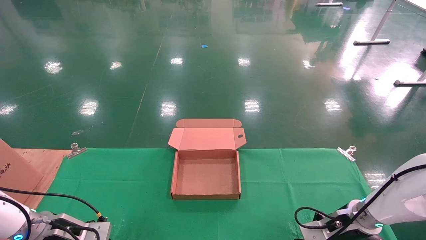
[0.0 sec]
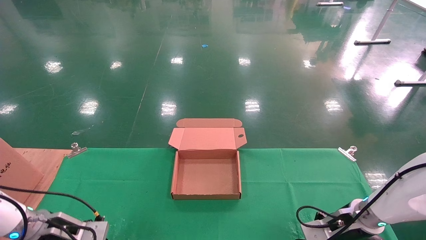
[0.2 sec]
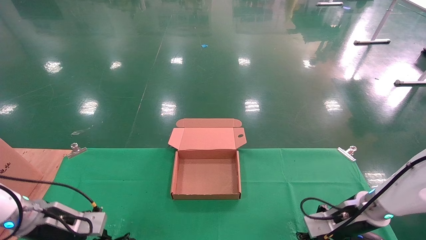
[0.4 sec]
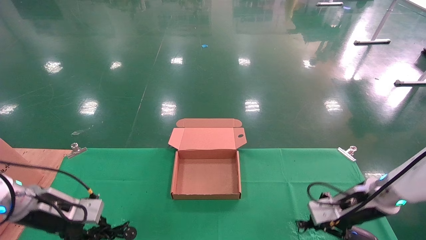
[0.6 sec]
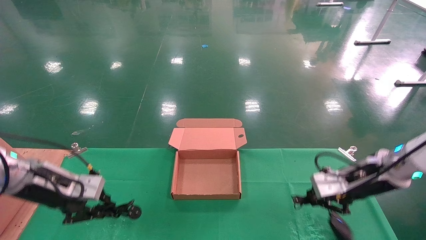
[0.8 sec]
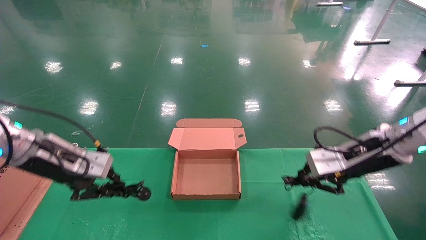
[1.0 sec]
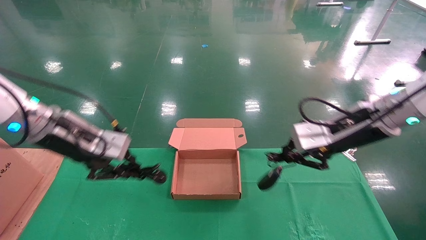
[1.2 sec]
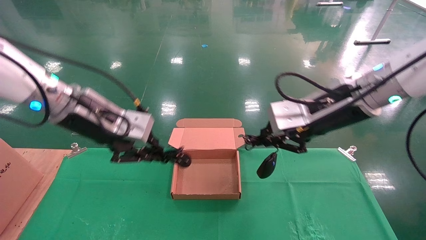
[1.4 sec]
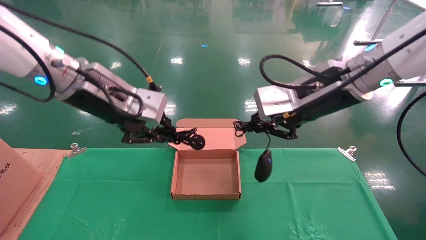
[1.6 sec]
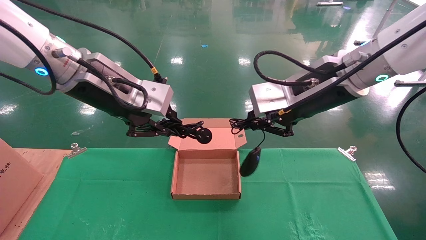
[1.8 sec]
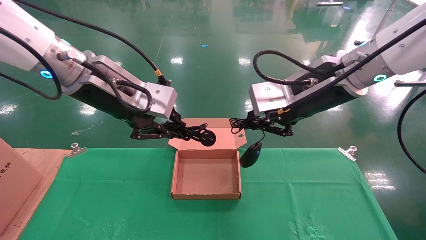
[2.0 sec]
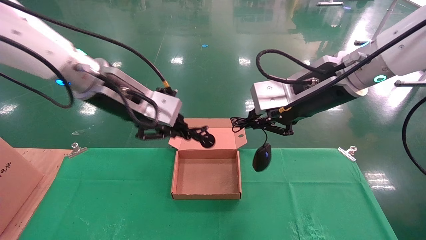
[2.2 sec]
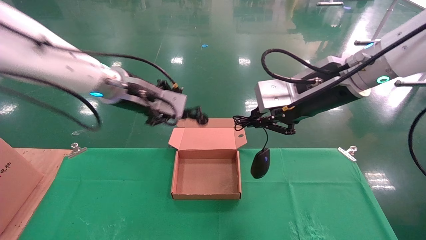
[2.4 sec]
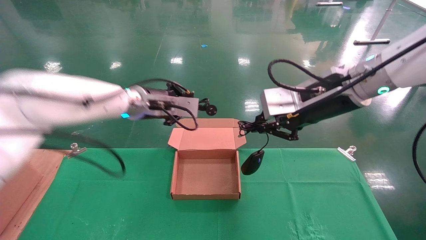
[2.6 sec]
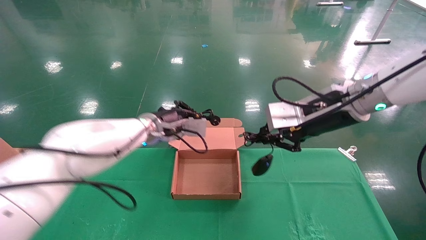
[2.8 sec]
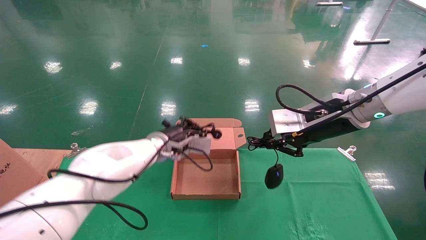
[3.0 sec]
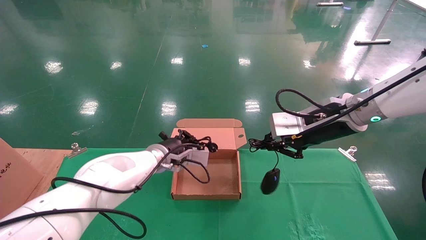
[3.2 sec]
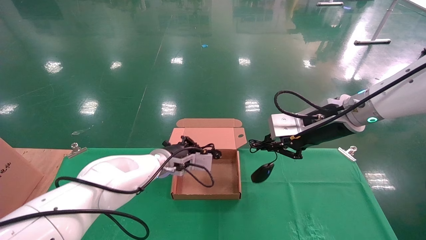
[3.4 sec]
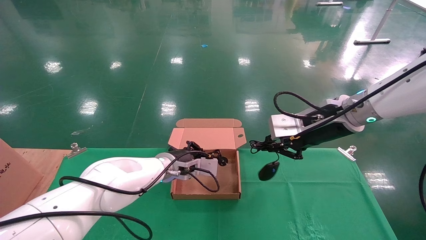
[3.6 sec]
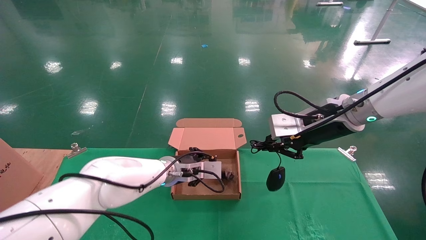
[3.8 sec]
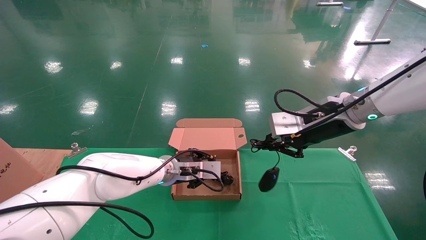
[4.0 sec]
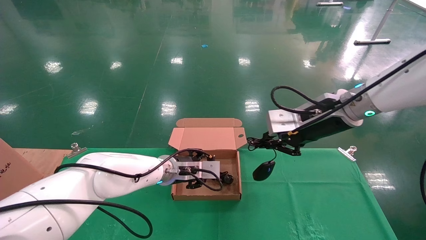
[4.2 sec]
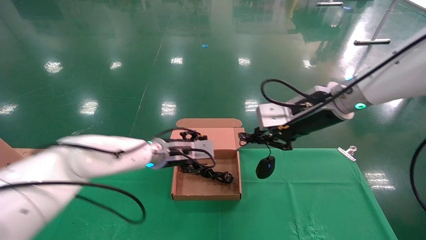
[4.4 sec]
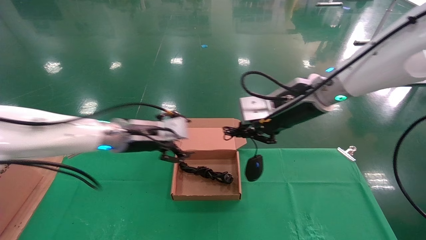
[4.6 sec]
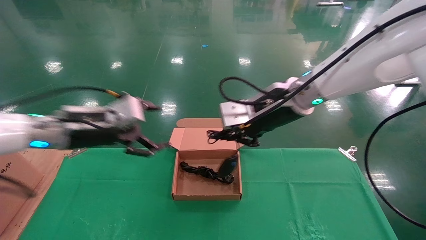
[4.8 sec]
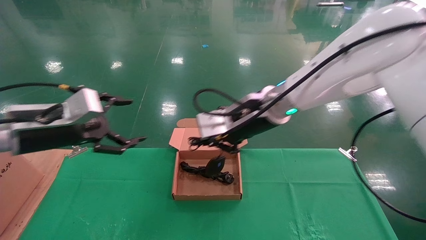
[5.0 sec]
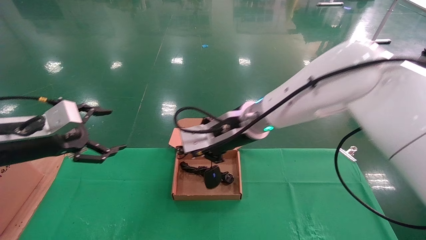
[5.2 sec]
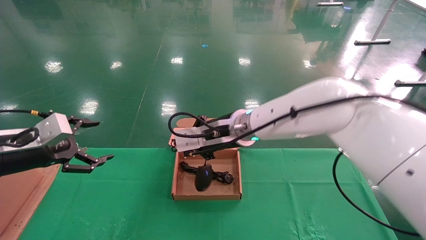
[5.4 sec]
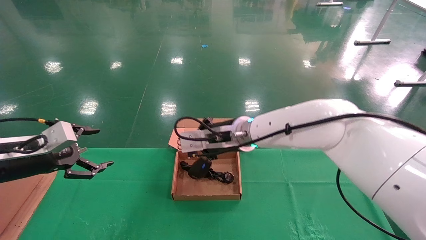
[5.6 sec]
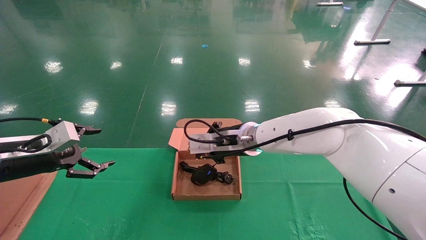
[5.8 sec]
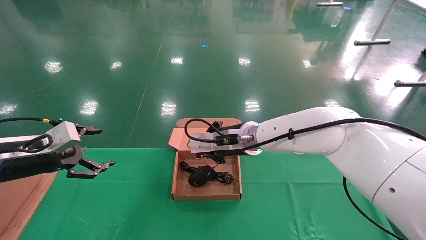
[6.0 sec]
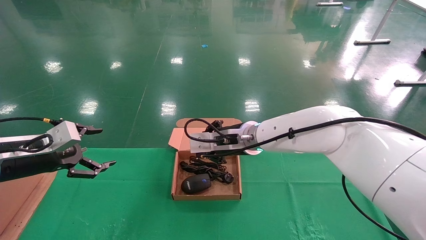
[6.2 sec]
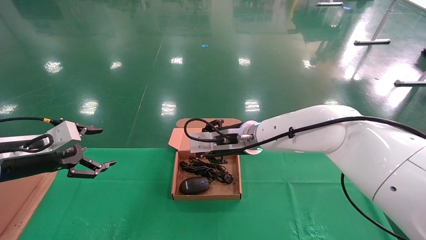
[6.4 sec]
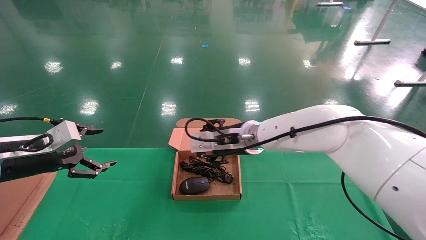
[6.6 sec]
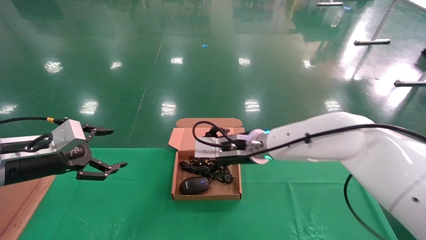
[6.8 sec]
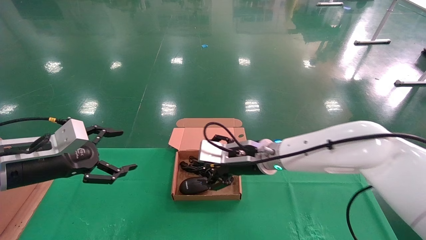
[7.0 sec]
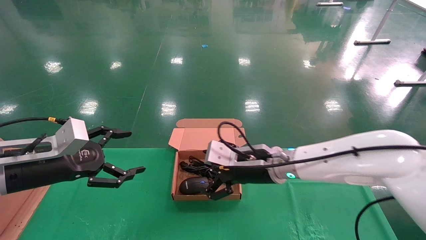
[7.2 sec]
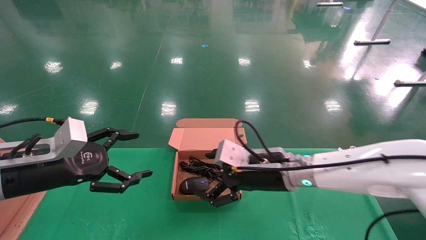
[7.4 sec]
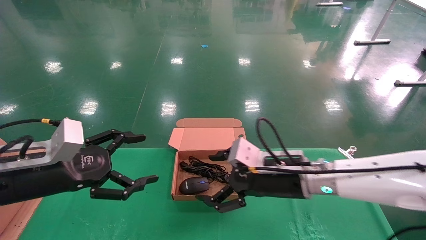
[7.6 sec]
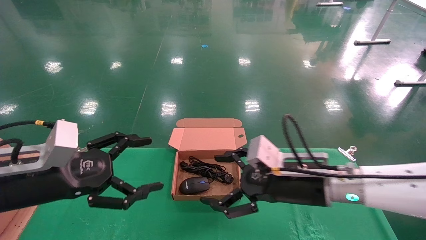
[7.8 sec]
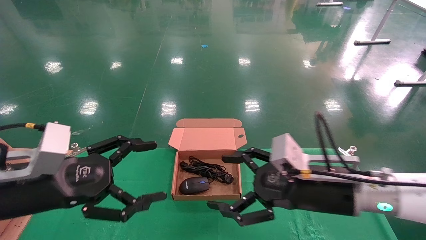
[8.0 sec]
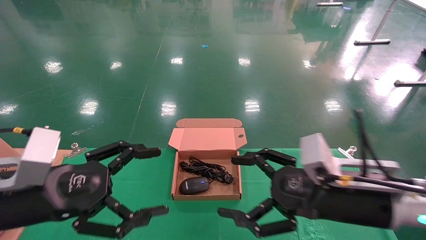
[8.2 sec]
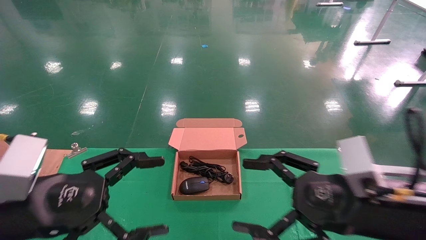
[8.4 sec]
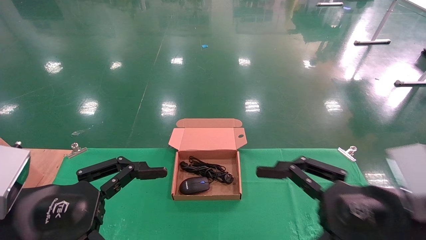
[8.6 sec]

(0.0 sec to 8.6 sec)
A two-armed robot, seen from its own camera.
Step, 1.0 sec - 7.0 sec: Place the mouse and power cord into the box.
0.0 sec - 1.4 sec: The right gripper moves upward, roughly 30 cm. The left gripper travels upward and to the right by some 30 cm.
1.4 sec - 2.8 sec: The left gripper moves forward, downward and to the right, roughly 20 cm.
2.8 sec - 4.4 sec: The left gripper opens.
4.4 sec - 5.8 sec: The left gripper heads to the left and backward, covering some 30 cm, and opens its fingers; the right gripper moves to the left, downward and forward, some 20 cm.
5.8 sec - 7.2 sec: The grippers both shift to the right by roughly 5 cm. The right gripper opens its fingers.
7.2 sec - 8.6 sec: The left gripper shifts approximately 15 cm backward and to the right. Meanwhile the right gripper travels backward and to the right by roughly 25 cm.

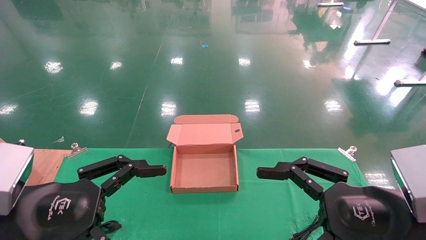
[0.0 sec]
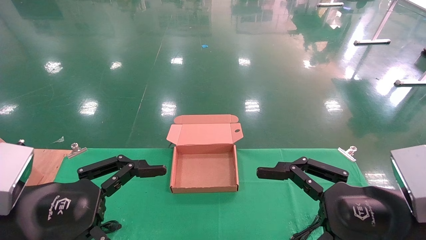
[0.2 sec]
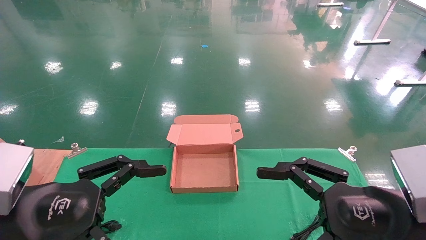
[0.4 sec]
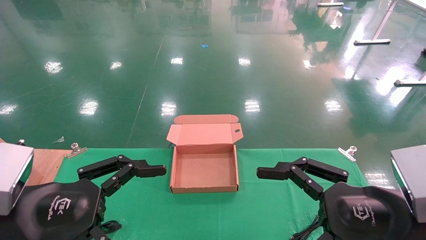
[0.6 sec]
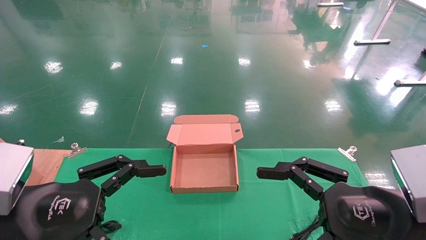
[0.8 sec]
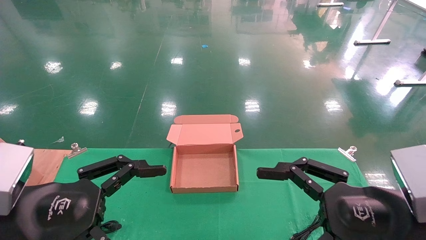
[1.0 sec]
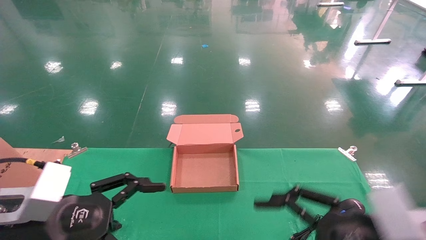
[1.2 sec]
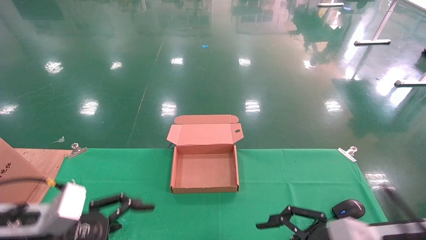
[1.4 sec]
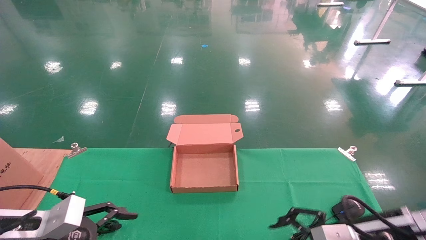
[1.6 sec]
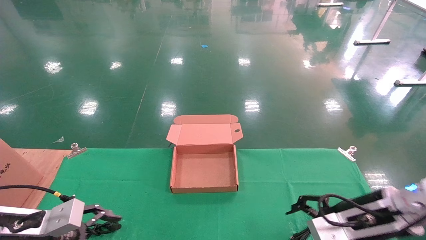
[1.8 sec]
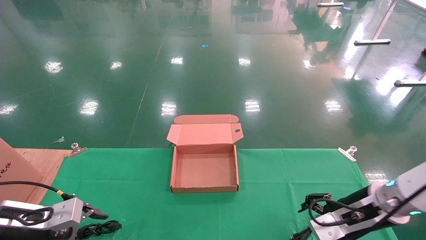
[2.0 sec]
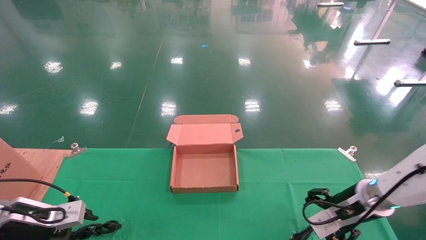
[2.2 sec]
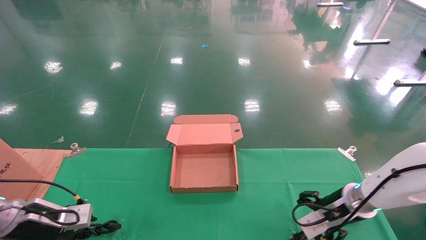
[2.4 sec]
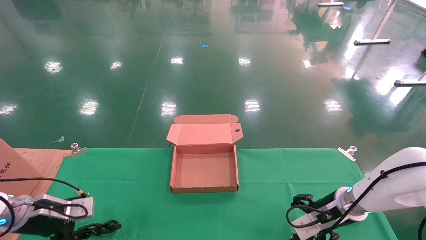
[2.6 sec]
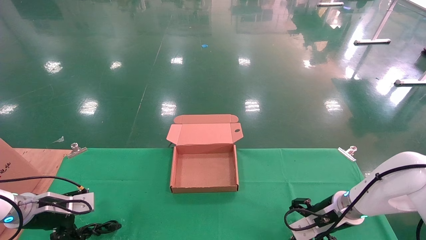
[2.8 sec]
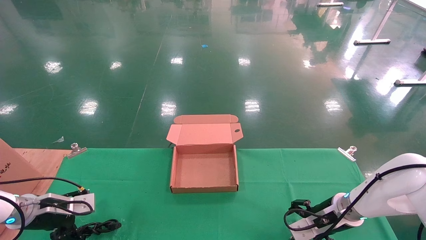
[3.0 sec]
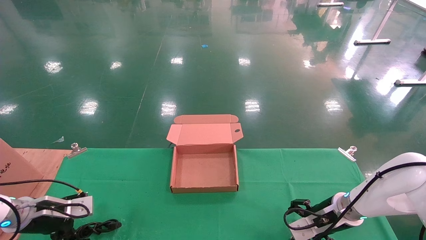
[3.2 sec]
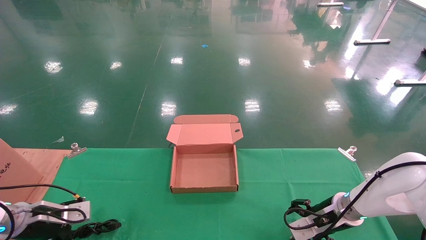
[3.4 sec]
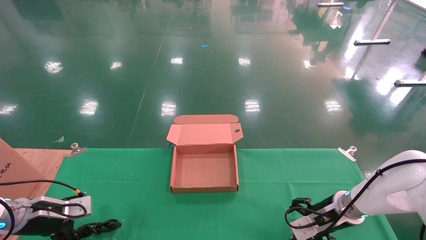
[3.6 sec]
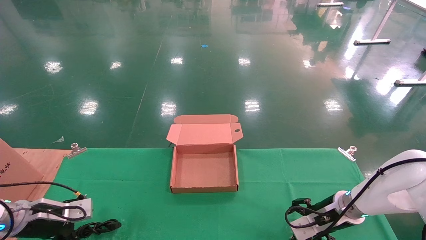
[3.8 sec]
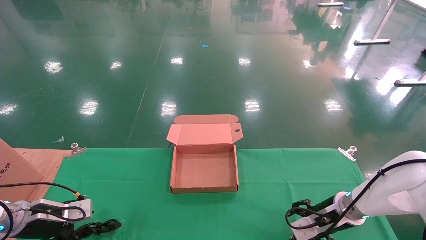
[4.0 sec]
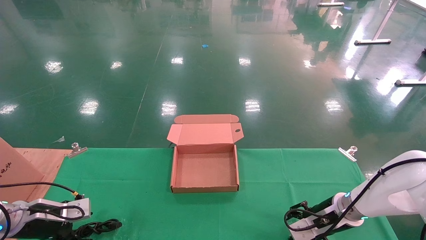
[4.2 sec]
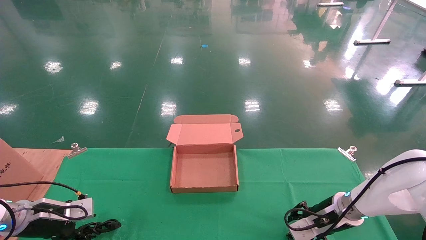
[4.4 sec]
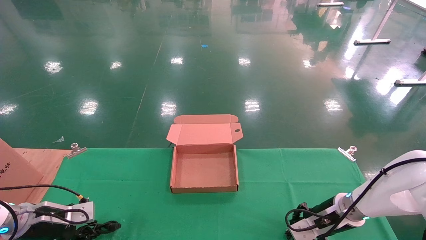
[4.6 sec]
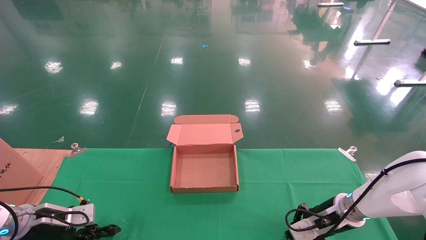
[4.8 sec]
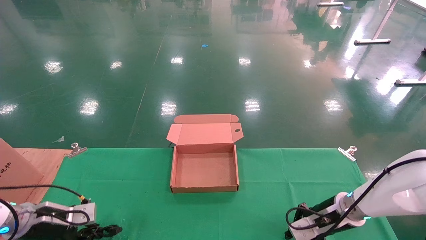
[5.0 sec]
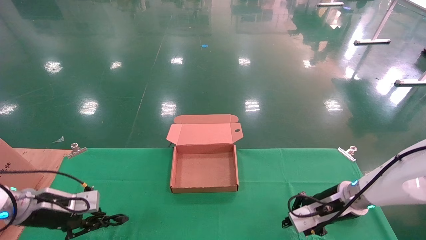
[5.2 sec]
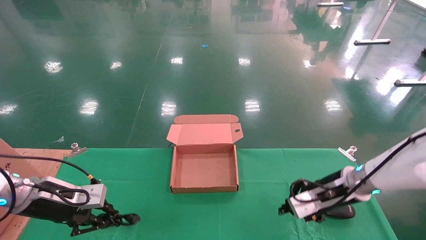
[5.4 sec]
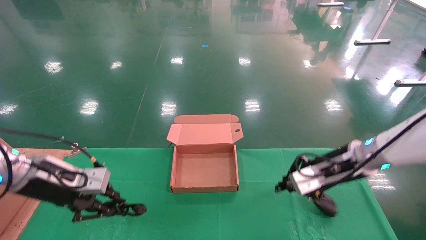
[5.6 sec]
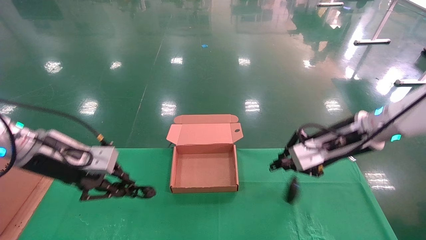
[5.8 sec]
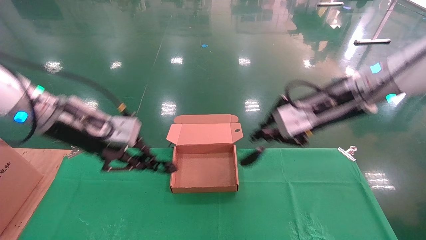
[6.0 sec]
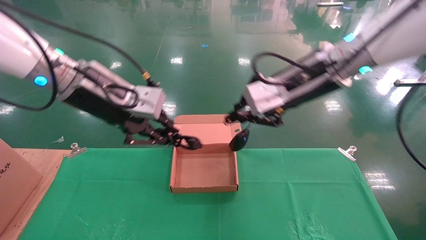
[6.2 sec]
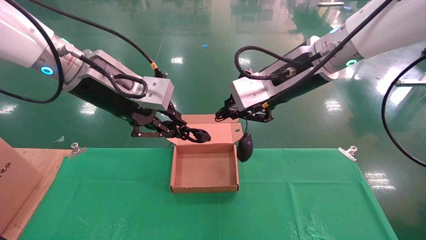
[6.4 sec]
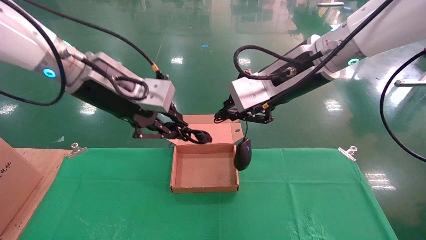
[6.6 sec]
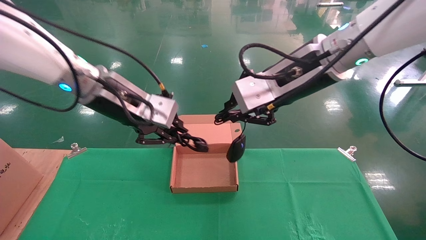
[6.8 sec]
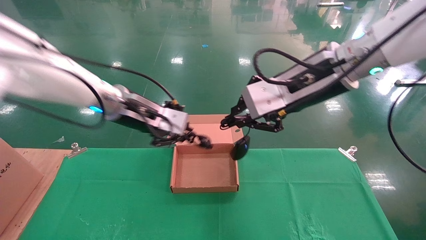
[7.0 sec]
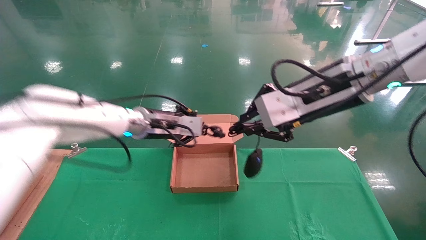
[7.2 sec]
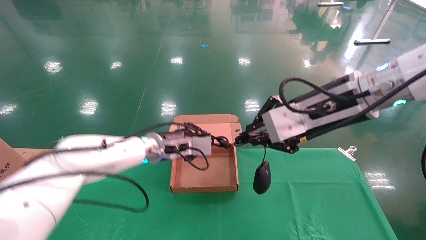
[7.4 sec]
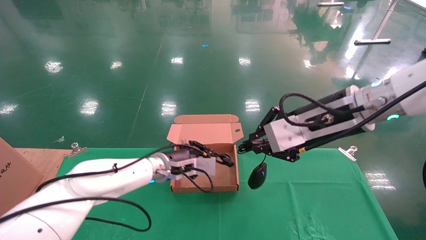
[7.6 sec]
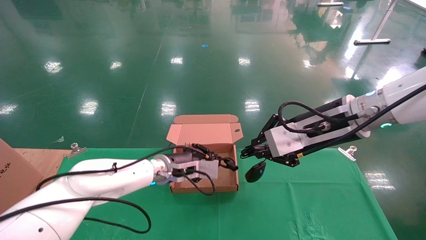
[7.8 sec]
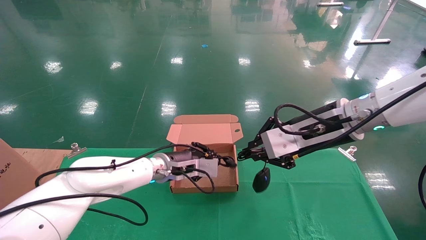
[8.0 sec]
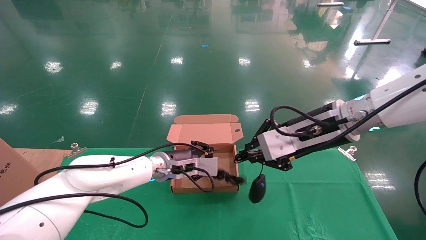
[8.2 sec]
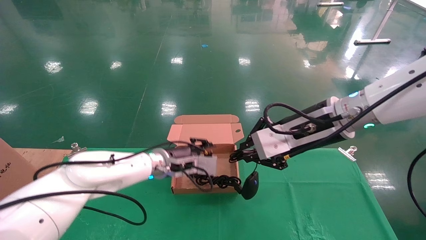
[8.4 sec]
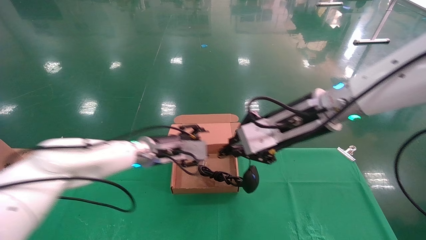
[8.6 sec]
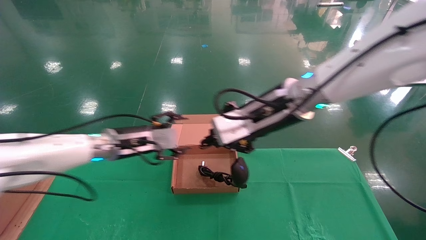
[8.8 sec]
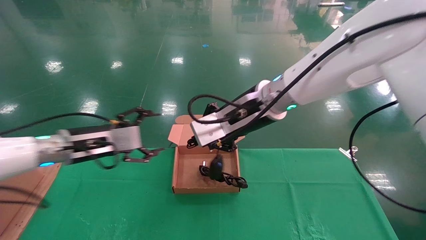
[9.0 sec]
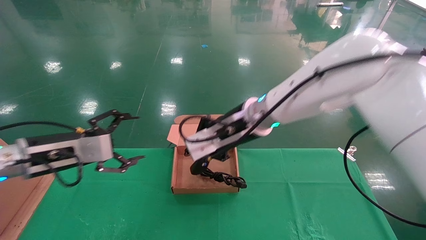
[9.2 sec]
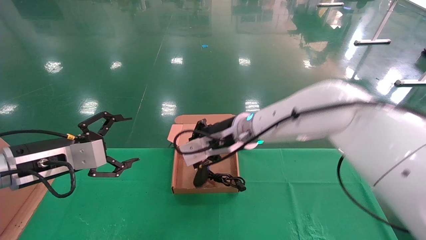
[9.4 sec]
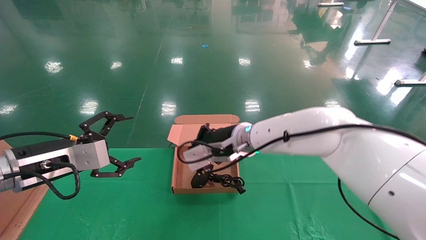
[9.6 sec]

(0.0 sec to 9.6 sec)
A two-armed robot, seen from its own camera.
Step, 1.4 sec - 5.0 sec: Grab and lift both the mouse and power cord from the accessory packaging area at the same time.
0.0 sec - 1.6 sec: The right gripper travels forward and downward by approximately 10 cm; the left gripper is displaced downward, forward and to the left by some 15 cm.
1.6 sec - 3.2 sec: The right gripper is displaced forward and downward by roughly 20 cm, while the left gripper travels forward, to the left and downward by about 15 cm.
3.2 sec - 4.8 sec: The left gripper closes up; the right gripper closes up.
4.8 sec - 6.4 sec: The left gripper shifts approximately 40 cm upward and to the right, while the right gripper goes approximately 35 cm upward and to the left.
6.4 sec - 8.0 sec: The right gripper moves downward, roughly 10 cm. The left gripper heads downward and forward, covering roughly 25 cm.
8.0 sec - 9.6 sec: The right gripper shifts approximately 20 cm to the left, forward and downward; the left gripper shifts approximately 25 cm to the left and backward, and opens its fingers.
